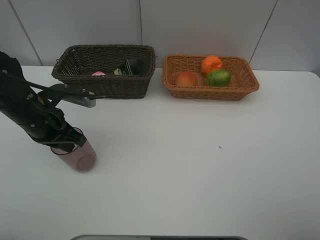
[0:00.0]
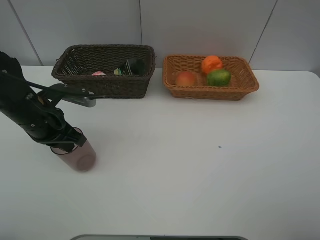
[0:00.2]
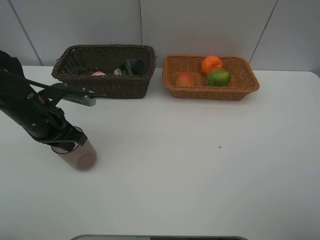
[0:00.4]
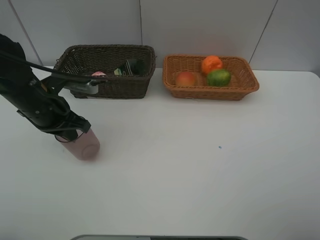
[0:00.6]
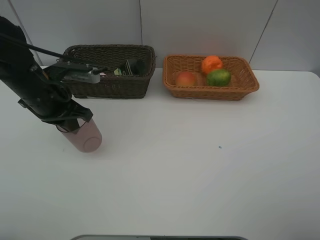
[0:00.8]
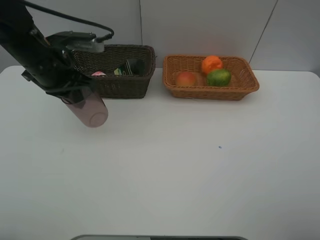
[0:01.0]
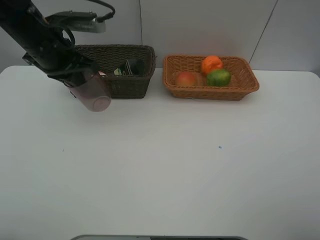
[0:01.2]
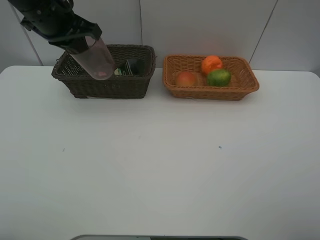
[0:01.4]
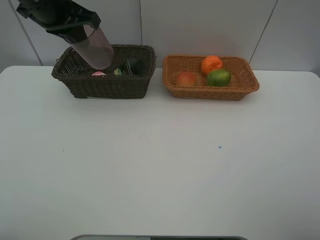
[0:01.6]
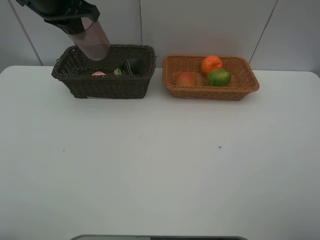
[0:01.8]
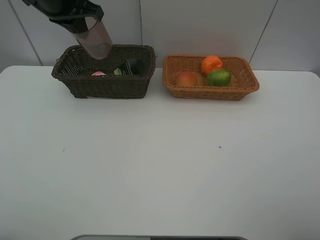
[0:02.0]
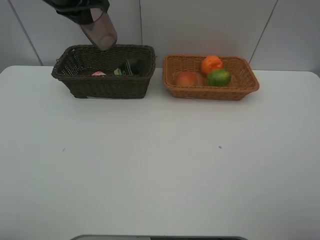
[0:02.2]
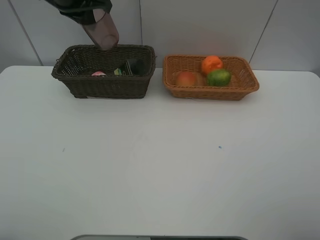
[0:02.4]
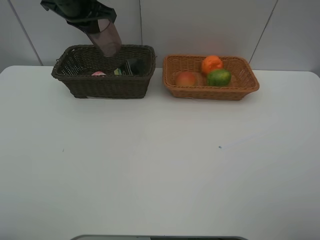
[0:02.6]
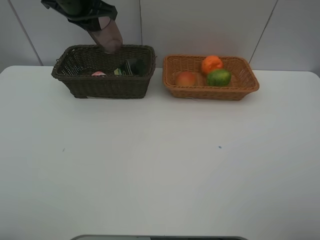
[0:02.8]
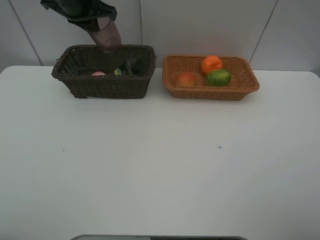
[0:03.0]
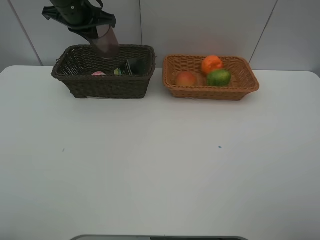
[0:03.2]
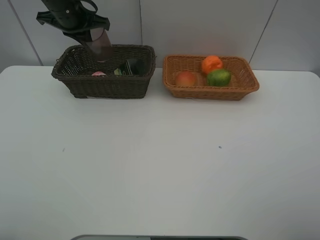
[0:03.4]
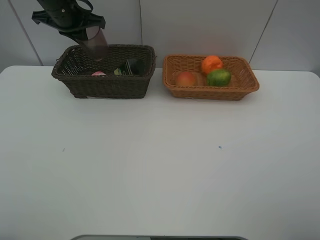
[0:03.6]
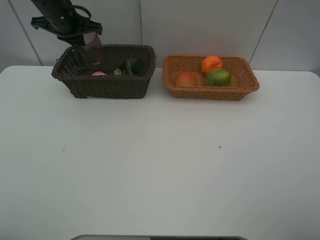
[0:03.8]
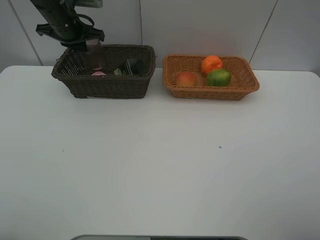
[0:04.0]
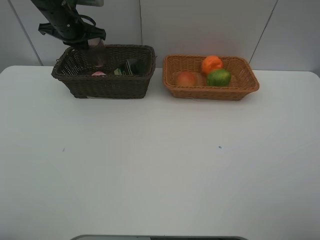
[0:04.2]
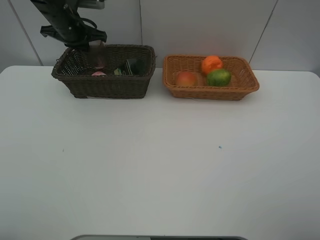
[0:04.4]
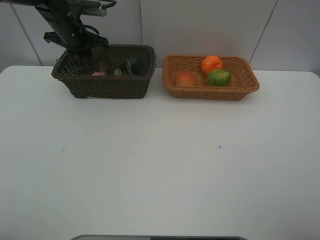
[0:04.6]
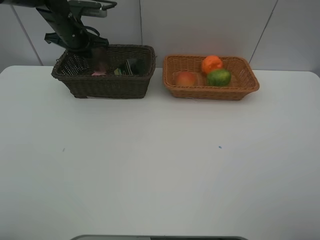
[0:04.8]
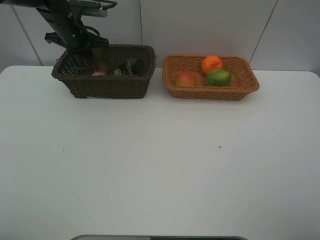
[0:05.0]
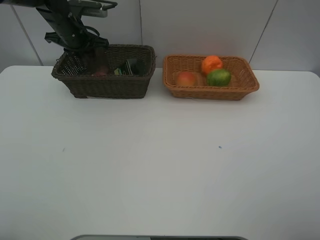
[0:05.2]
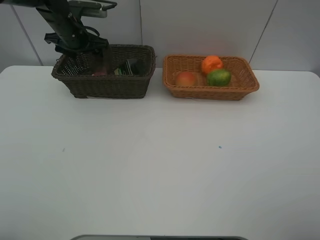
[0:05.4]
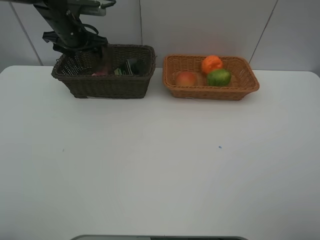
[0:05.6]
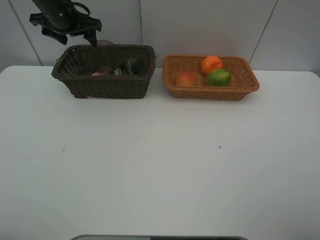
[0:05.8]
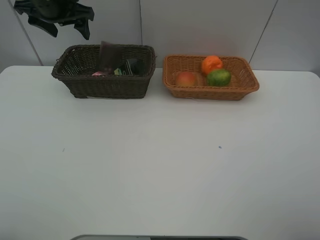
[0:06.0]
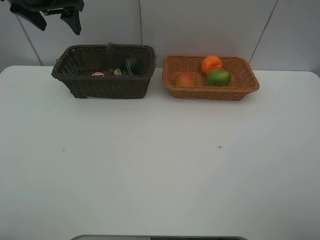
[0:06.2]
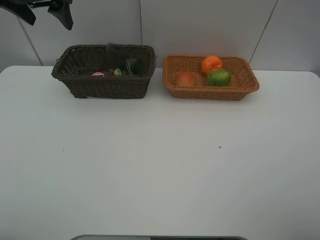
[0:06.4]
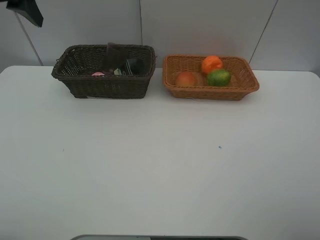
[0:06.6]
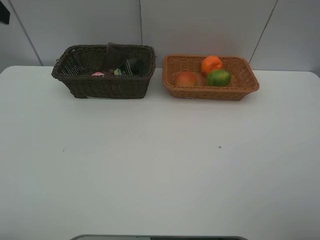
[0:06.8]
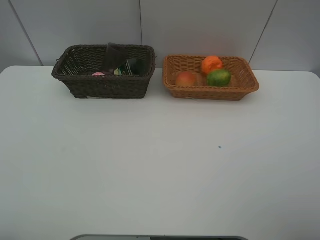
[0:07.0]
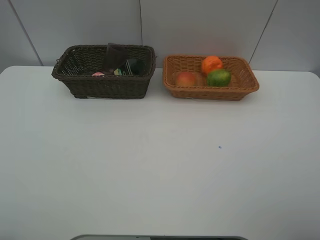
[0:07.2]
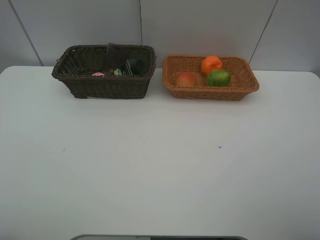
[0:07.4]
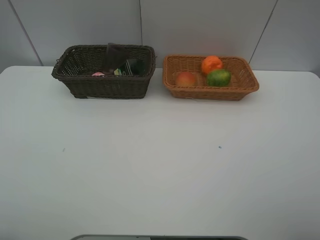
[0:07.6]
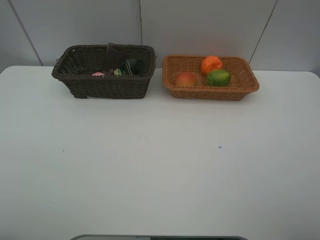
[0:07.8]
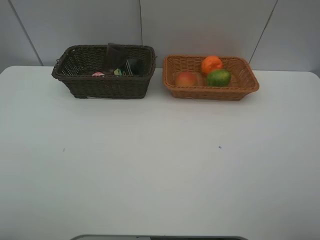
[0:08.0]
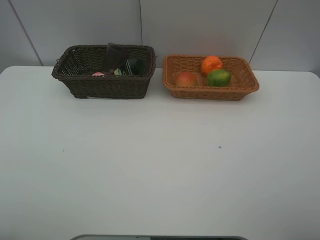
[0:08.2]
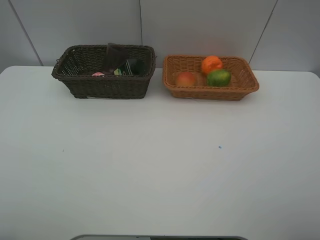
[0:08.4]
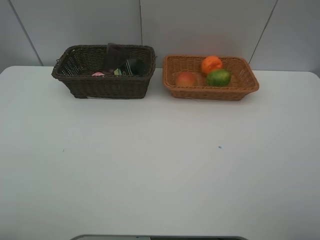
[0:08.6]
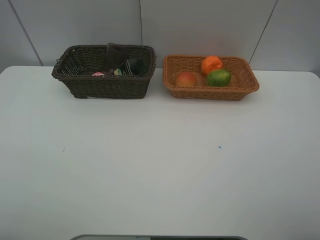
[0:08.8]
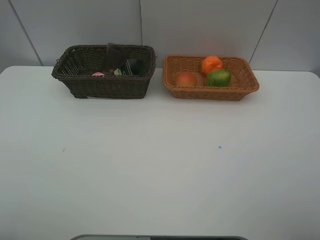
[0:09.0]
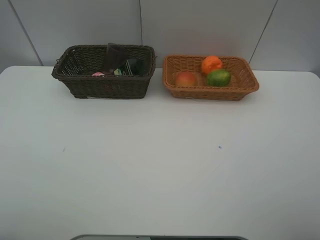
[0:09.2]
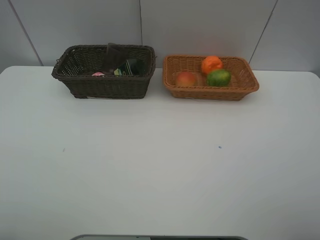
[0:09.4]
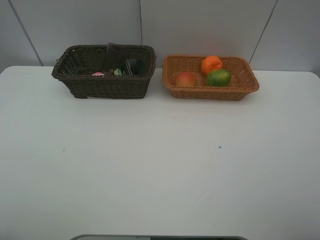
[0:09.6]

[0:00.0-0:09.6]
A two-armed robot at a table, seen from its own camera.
Task of the whole recording: place multiple objects separately in different baskets.
0:00.0 to 0:01.6: The left gripper moves upward and forward, about 20 cm.
0:01.6 to 0:03.2: The left gripper goes some 10 cm forward.
0:03.2 to 0:04.8: The left gripper travels downward by approximately 5 cm.
0:04.8 to 0:06.4: The left gripper shifts approximately 20 cm upward and backward, and opens.
0:06.4 to 0:08.0: The left gripper is displaced backward by about 35 cm.

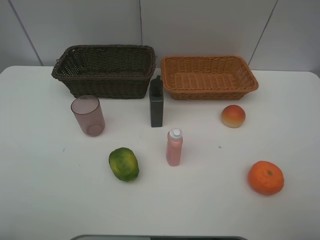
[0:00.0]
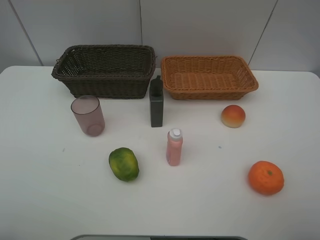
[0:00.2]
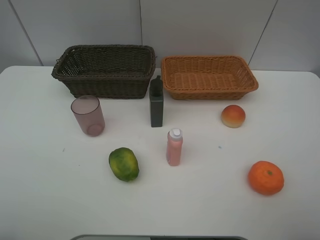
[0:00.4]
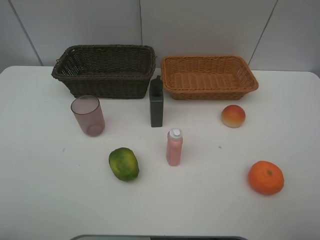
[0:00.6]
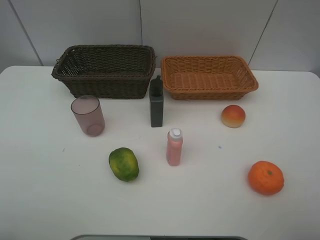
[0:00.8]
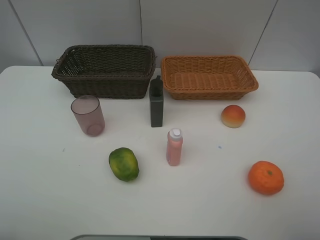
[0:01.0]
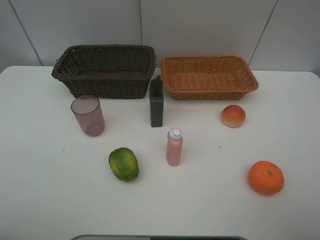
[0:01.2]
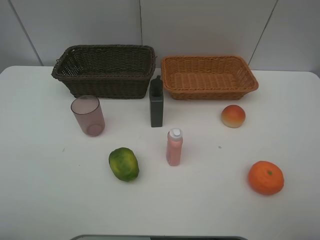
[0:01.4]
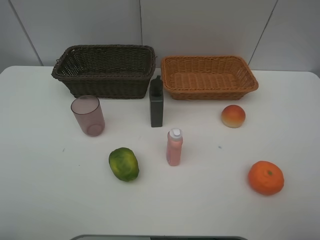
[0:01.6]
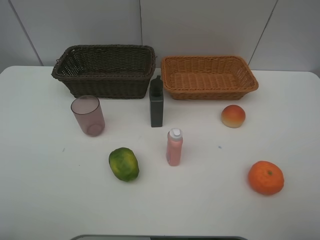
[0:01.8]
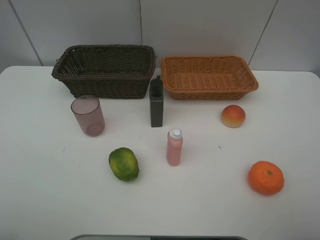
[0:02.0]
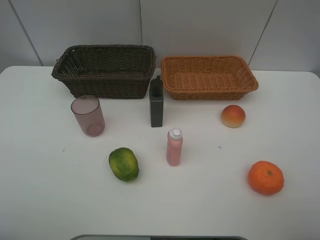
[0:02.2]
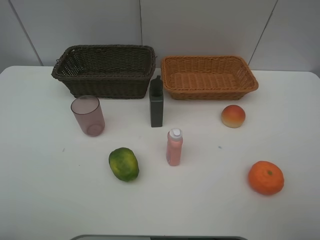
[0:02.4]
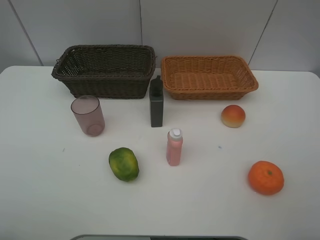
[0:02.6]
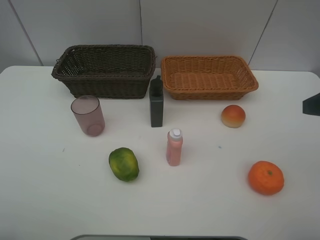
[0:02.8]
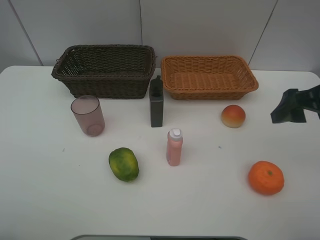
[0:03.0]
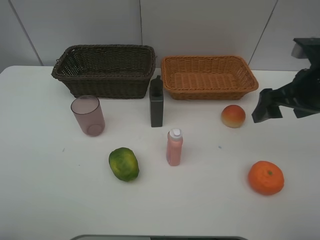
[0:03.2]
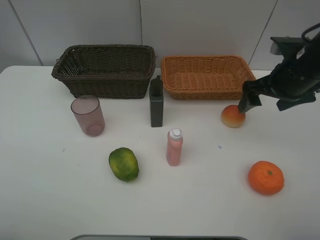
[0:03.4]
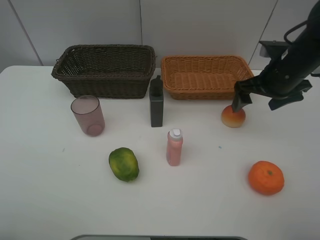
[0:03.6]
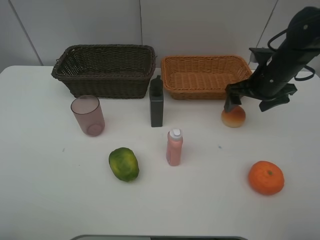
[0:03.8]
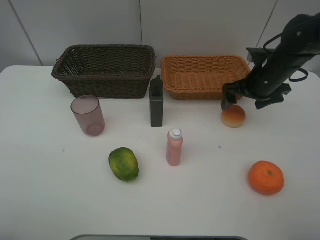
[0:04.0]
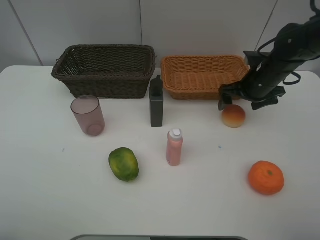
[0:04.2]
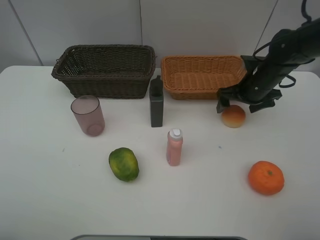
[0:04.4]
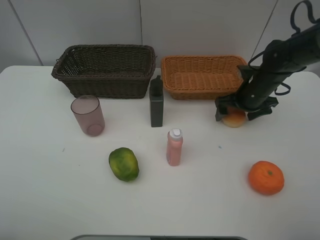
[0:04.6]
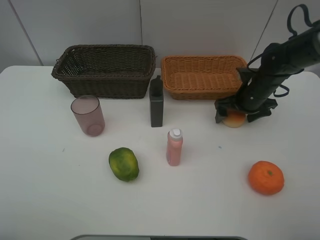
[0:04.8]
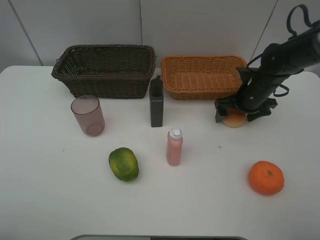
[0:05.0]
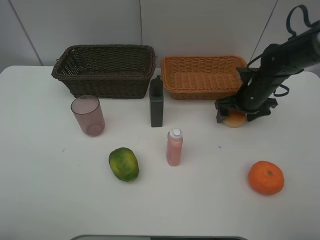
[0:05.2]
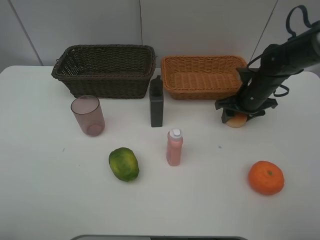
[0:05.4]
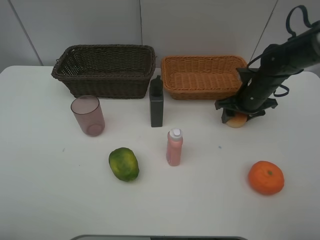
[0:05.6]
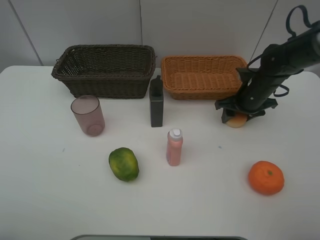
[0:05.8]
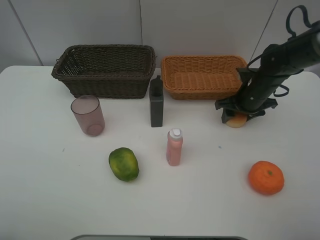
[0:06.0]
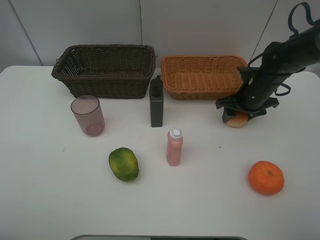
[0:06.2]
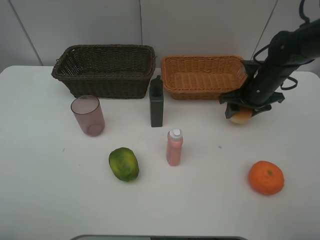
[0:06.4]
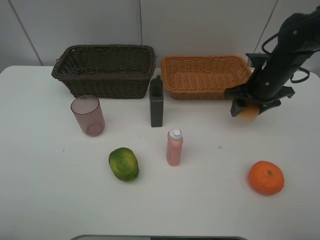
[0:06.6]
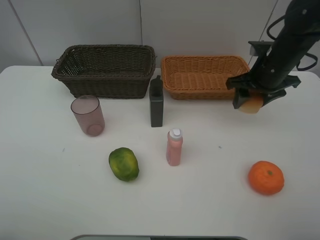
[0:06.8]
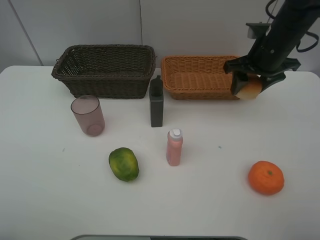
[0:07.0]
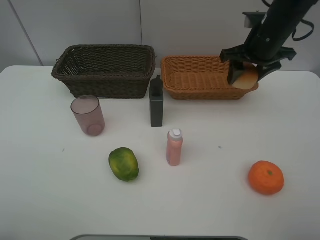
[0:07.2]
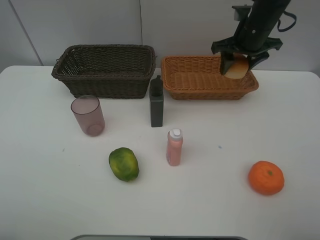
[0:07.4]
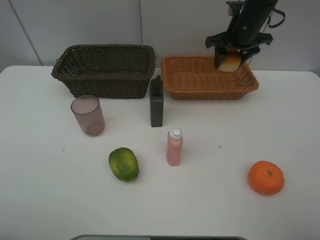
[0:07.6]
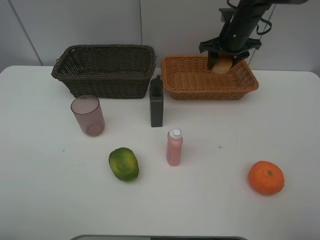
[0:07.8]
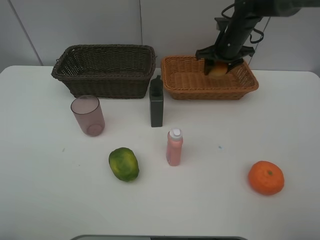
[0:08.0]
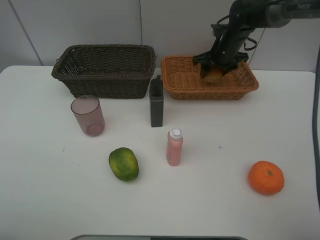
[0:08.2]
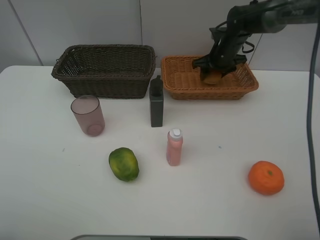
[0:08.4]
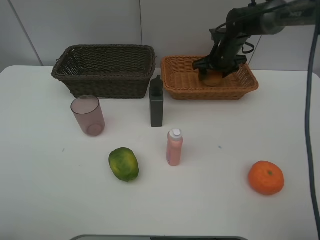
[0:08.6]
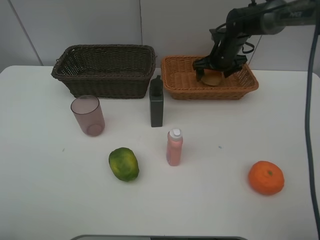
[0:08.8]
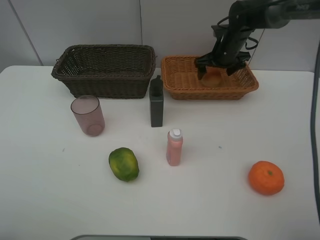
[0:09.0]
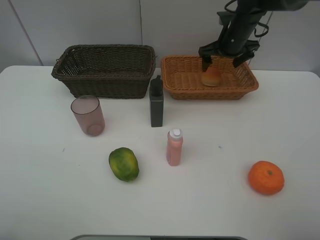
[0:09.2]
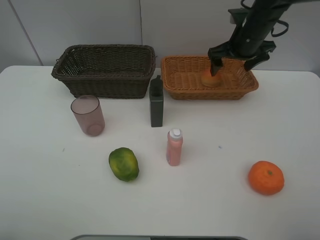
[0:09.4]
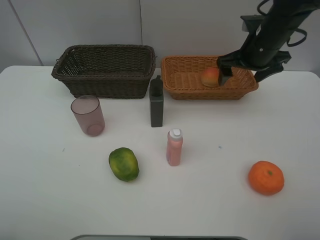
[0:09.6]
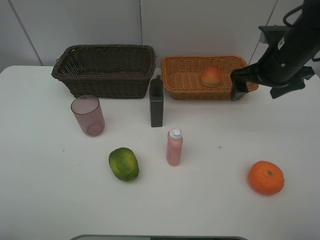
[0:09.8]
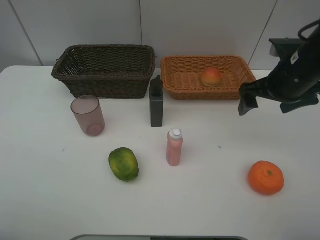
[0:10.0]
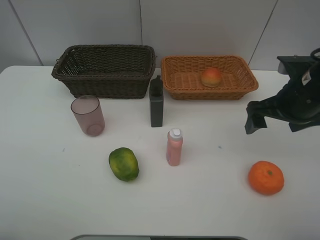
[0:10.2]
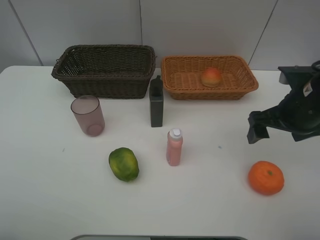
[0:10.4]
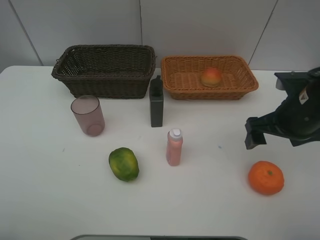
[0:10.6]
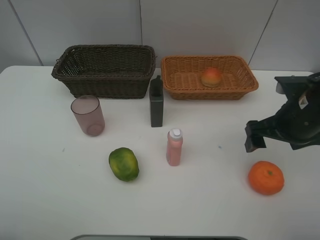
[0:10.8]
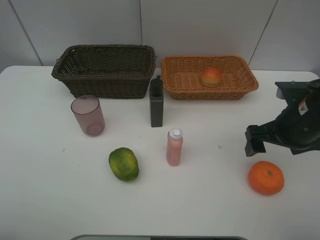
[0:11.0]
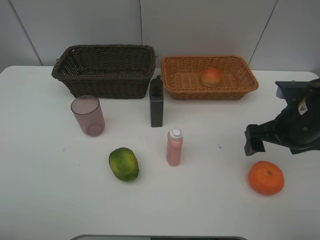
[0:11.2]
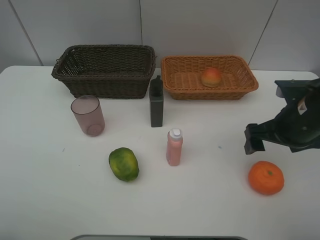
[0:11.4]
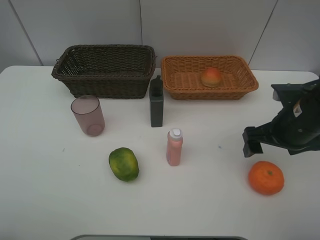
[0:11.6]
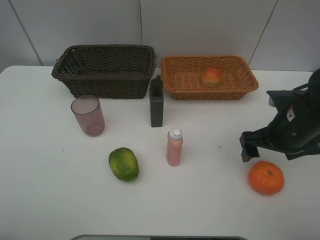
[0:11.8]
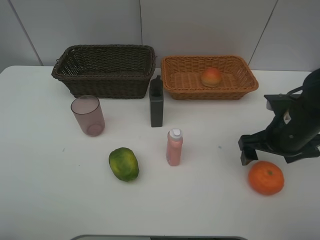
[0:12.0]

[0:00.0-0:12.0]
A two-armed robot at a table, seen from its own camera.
Task of the whole recording: place multiple objects separately in different baskets.
0:00.0 to 0:01.6: Neither gripper changes place.
0:01.6 to 0:03.0: The right gripper moves forward, some 20 cm.
0:03.0 to 0:04.4: The right gripper shifts about 20 cm forward and downward.
0:04.4 to 0:06.0: The right gripper closes.
0:06.0 to 0:07.6: The right gripper shifts about 15 cm upward and forward.
0:07.6 to 0:09.0: The right gripper shifts roughly 5 cm downward, and opens.
0:09.0 to 0:10.4: The right gripper shifts about 25 cm backward.
0:10.4 to 0:12.0: The right gripper travels downward by approximately 5 cm.

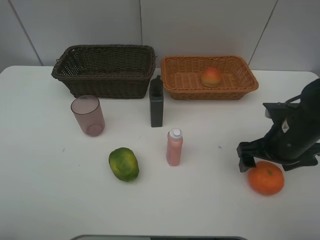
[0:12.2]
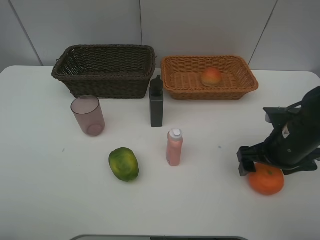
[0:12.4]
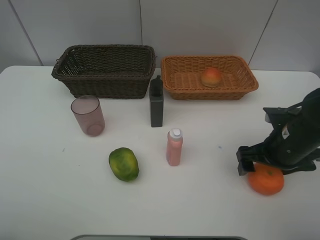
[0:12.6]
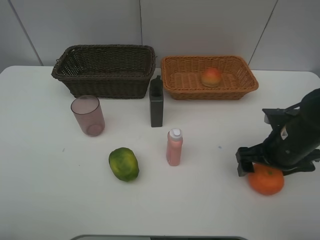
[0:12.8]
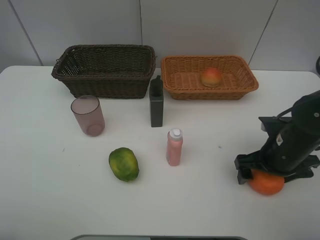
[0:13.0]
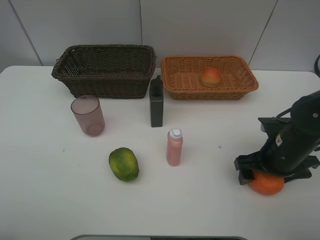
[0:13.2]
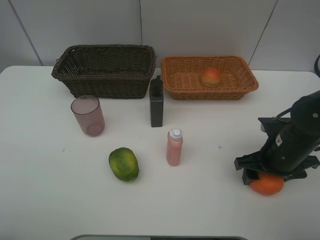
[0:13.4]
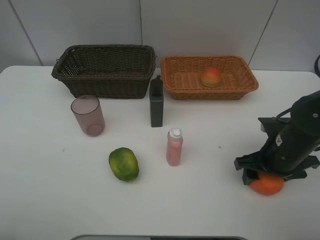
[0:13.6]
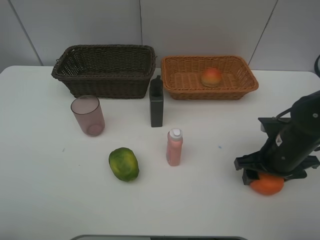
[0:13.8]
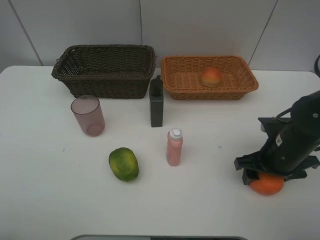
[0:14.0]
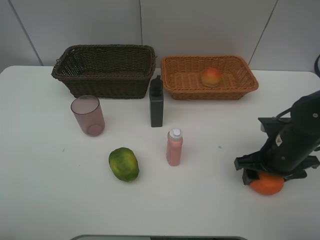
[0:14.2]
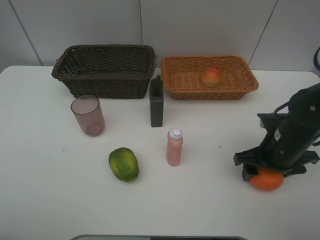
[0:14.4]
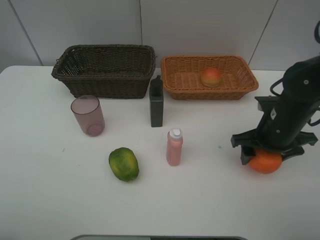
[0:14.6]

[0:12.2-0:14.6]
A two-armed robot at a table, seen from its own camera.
Task of the whole recording: place multiple objects separately in different baskets.
0:12.2 to 0:13.4: The right gripper closes.
0:13.4 to 0:14.6: The grippers move only a little.
